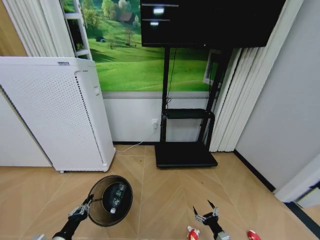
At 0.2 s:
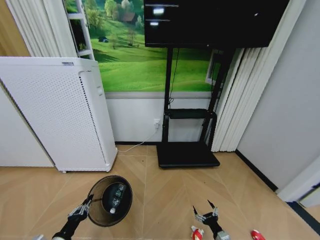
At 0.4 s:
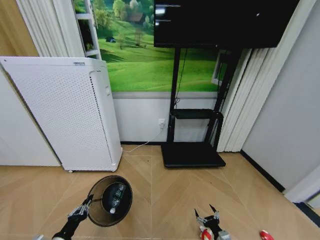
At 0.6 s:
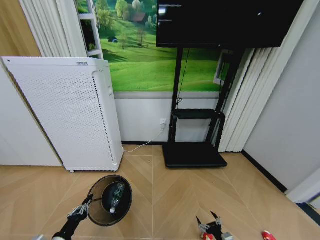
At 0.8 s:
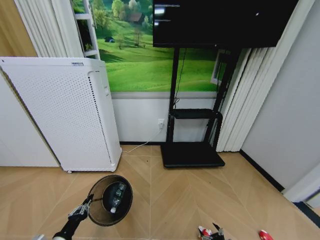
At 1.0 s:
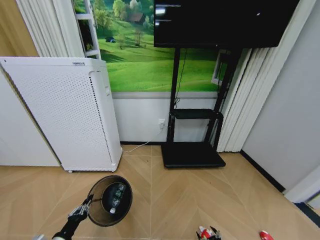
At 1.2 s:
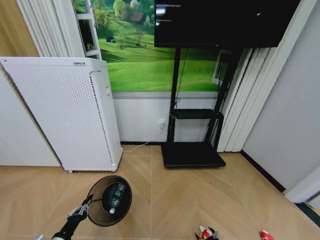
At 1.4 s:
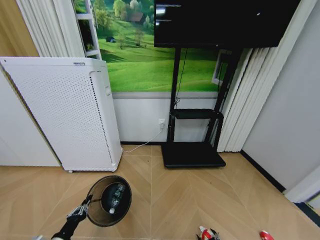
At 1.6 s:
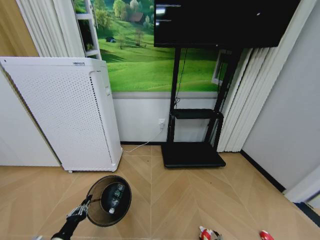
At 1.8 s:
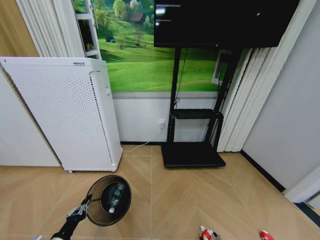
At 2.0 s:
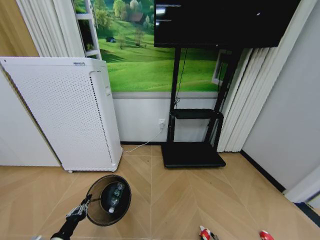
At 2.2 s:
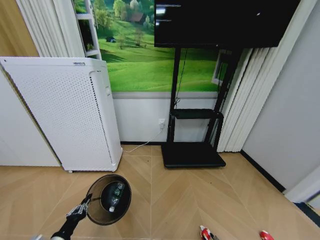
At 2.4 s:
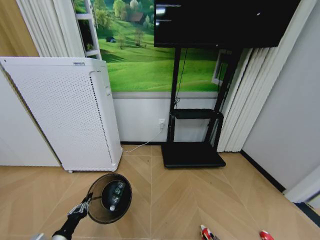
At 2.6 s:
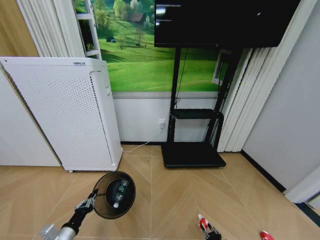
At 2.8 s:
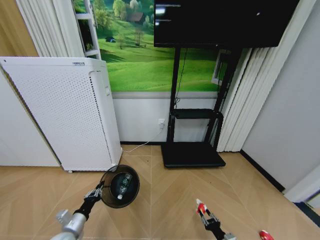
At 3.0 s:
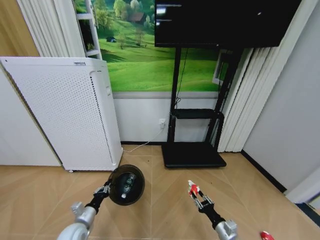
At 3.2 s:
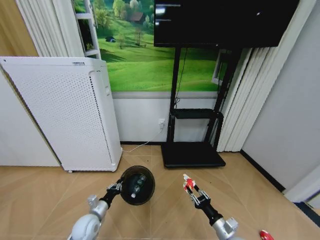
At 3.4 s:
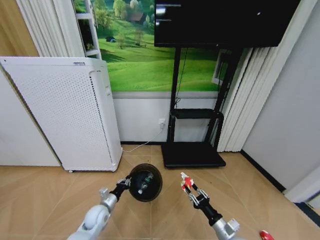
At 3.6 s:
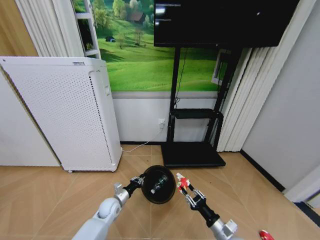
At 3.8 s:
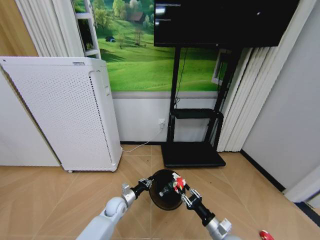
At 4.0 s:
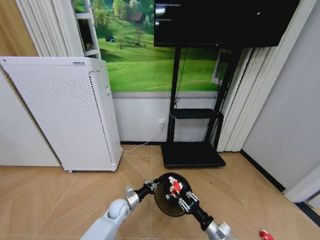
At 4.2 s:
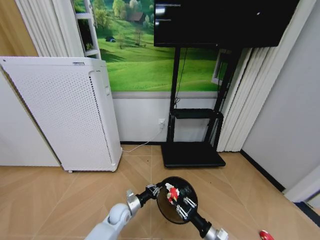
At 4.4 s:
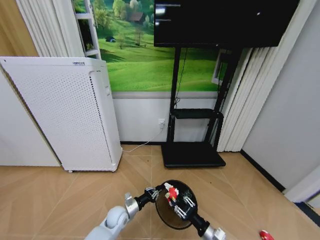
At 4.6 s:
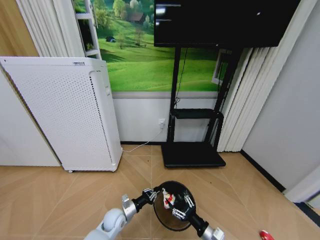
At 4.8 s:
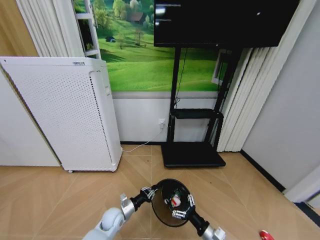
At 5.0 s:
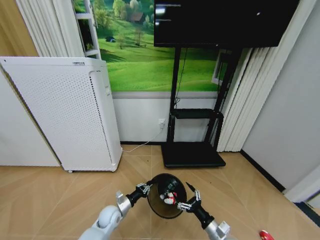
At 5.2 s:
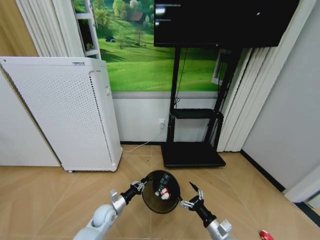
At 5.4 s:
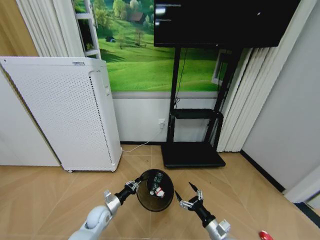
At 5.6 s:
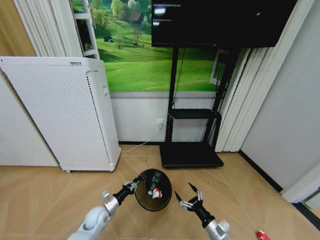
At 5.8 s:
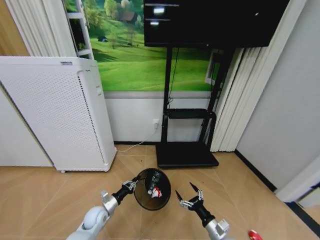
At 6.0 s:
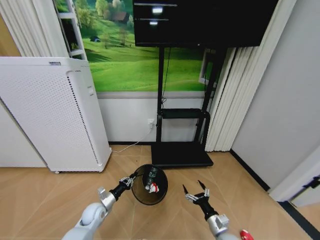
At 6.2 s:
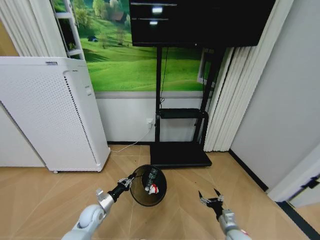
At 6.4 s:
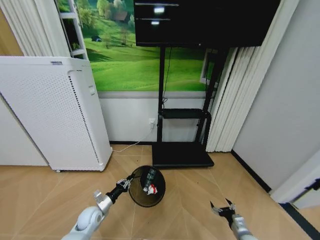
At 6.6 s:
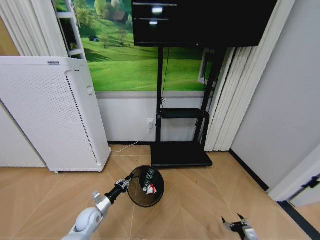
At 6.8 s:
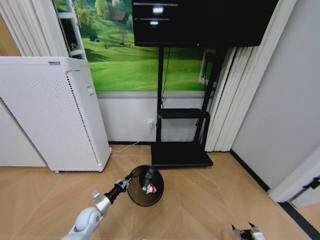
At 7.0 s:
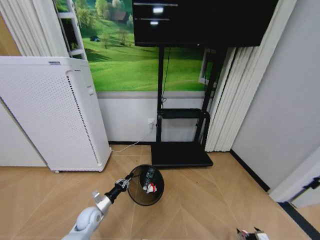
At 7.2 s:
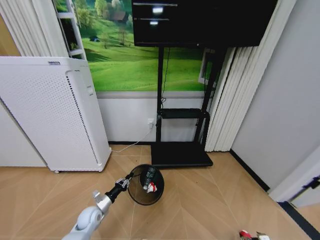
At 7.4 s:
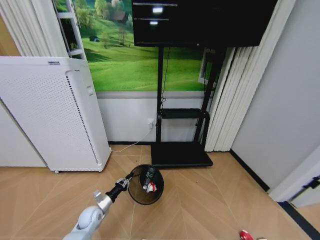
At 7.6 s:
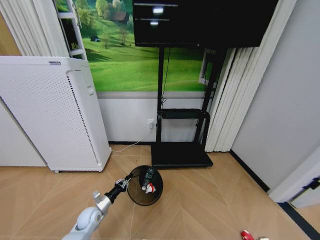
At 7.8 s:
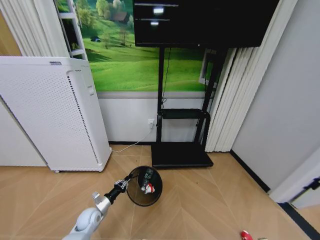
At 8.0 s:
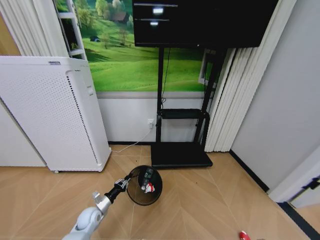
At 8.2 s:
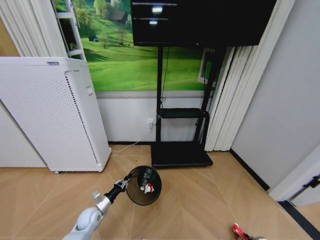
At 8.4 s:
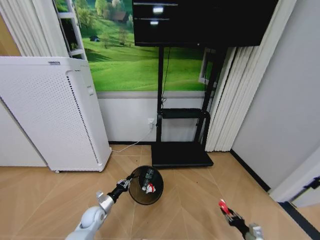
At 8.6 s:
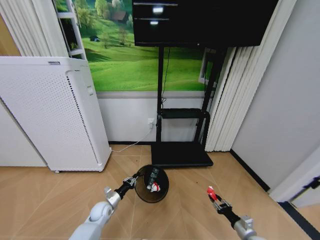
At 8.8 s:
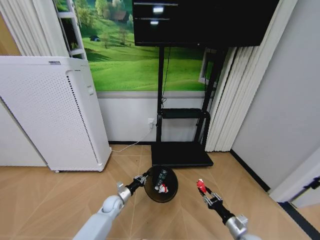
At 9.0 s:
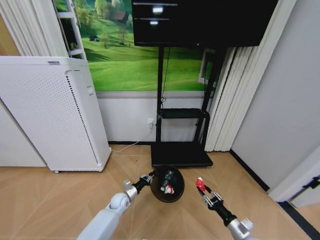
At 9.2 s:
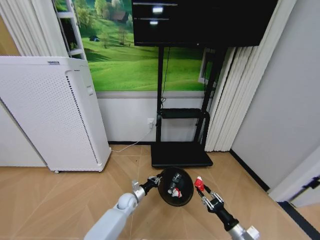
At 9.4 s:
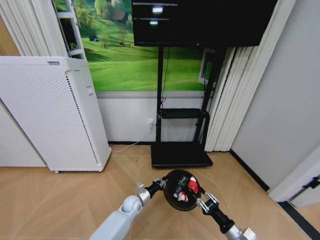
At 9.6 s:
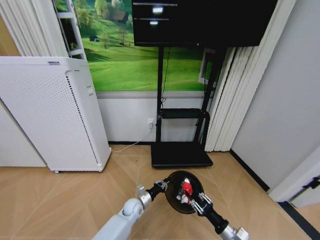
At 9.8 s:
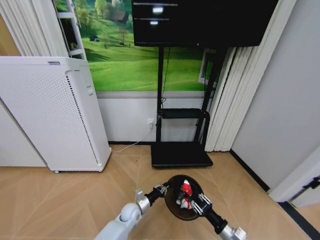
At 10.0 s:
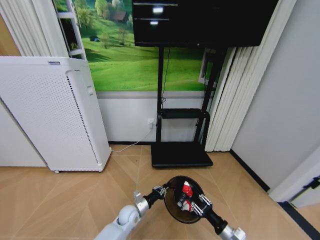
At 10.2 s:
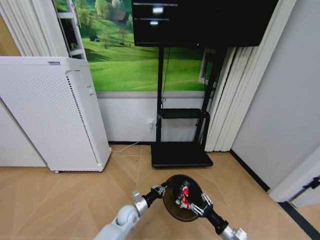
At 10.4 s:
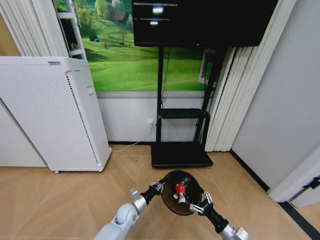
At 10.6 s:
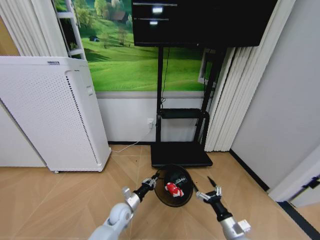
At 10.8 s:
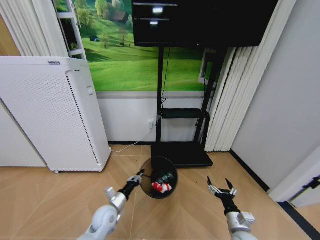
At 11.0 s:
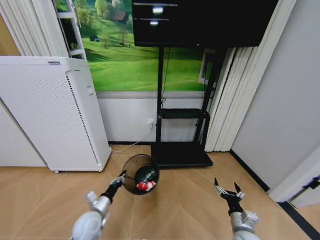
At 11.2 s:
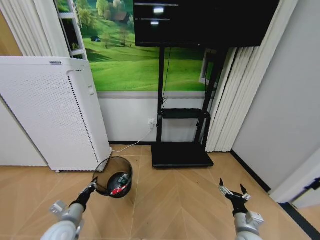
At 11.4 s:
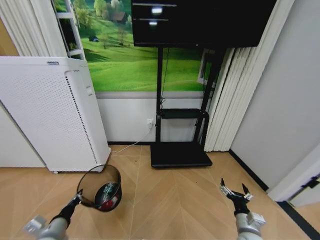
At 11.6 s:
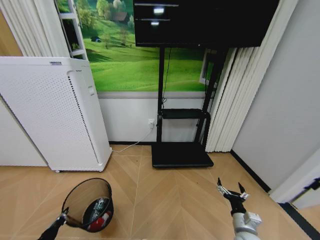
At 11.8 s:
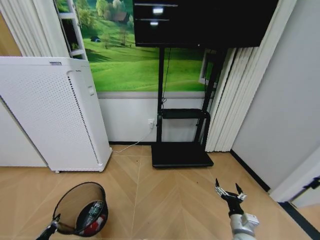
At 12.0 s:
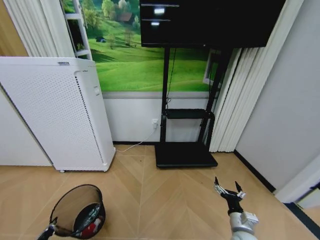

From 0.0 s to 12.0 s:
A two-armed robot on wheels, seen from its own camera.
Task of the whole recording: Pick up the trash bin and place the garbage on the floor into it.
From 0.0 s to 1.6 s: The right gripper is displaced downward by roughly 10 cm.
From 1.6 s to 3.0 s: The right gripper is displaced upward by roughly 15 cm, and closes. Meanwhile the left gripper is displaced forward by approximately 10 cm.
From 3.0 s to 4.4 s: The right gripper goes some 5 cm to the left; the left gripper travels to the right, forward and downward by about 20 cm.
From 4.4 s to 6.0 s: The right gripper opens; the left gripper goes approximately 10 cm to the left.
From 6.0 s to 7.6 s: The right gripper moves to the right and downward, roughly 30 cm.
From 7.6 s to 9.0 s: The left gripper goes some 10 cm to the right and forward; the right gripper shifts approximately 20 cm to the left and upward, and closes its fingers.
From 9.0 s to 10.4 s: The left gripper heads to the right and backward, covering roughly 10 cm; the right gripper goes about 5 cm to the left, and opens its fingers.
From 10.4 s to 12.0 s: The left gripper moves to the left, backward and upward, approximately 40 cm.

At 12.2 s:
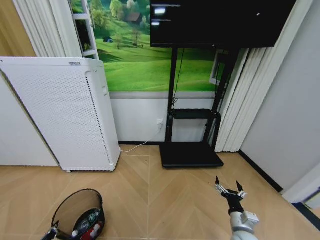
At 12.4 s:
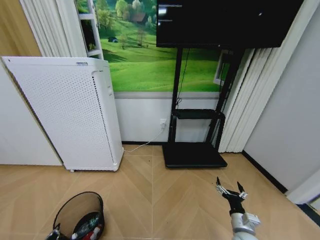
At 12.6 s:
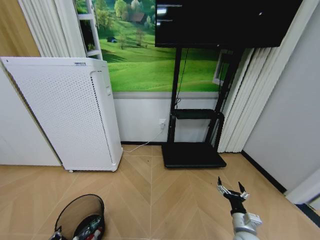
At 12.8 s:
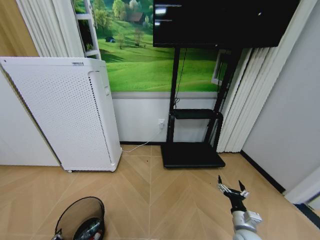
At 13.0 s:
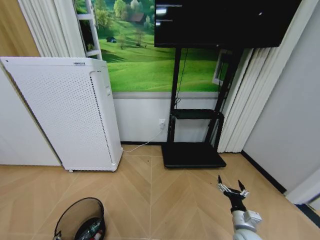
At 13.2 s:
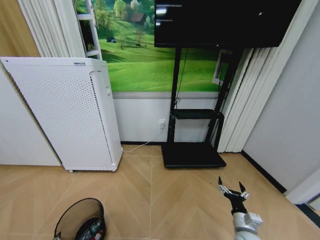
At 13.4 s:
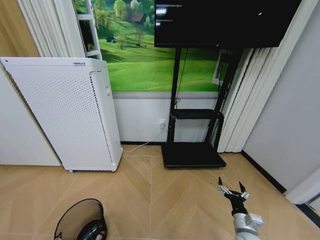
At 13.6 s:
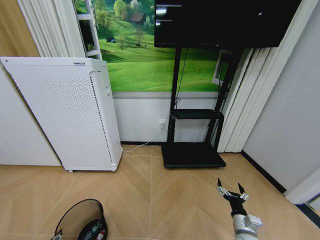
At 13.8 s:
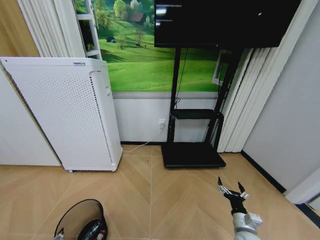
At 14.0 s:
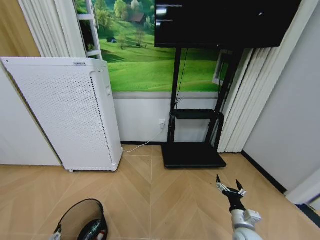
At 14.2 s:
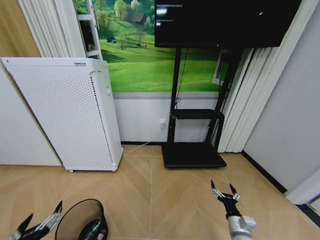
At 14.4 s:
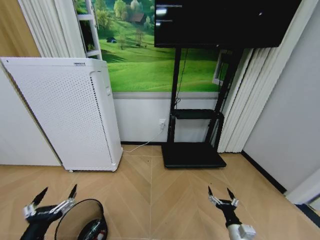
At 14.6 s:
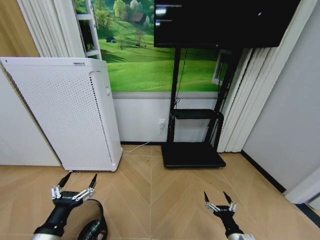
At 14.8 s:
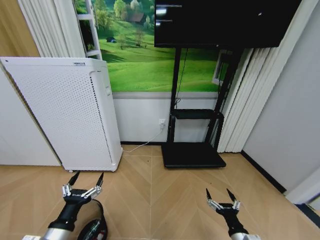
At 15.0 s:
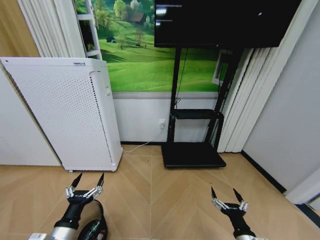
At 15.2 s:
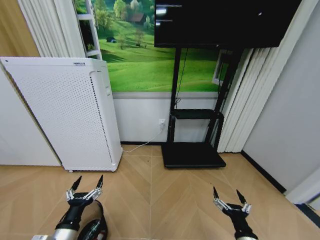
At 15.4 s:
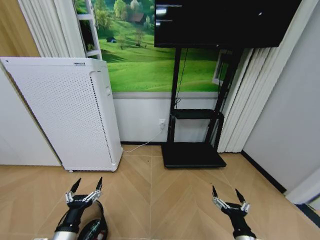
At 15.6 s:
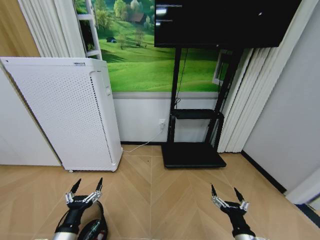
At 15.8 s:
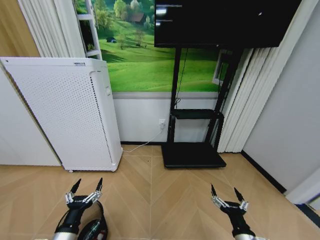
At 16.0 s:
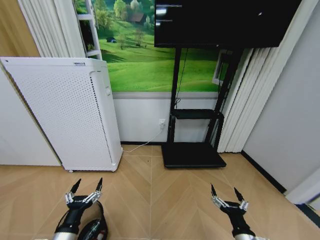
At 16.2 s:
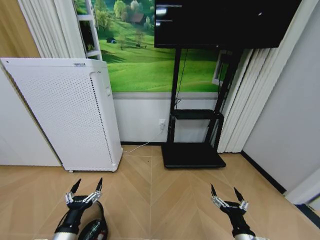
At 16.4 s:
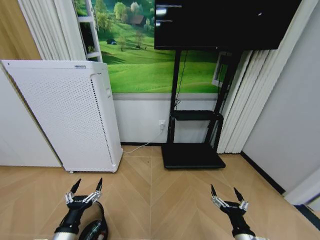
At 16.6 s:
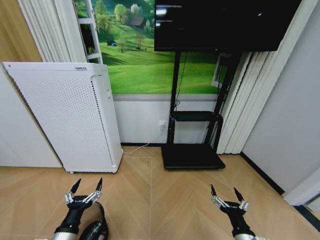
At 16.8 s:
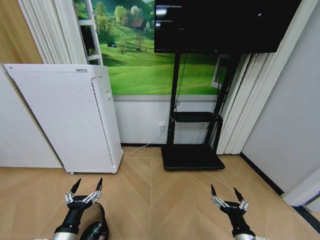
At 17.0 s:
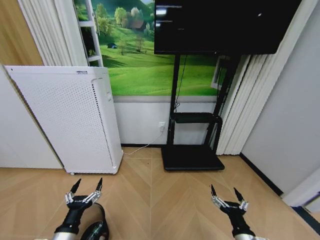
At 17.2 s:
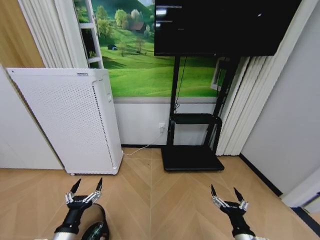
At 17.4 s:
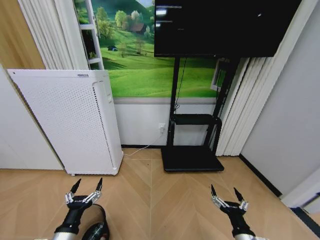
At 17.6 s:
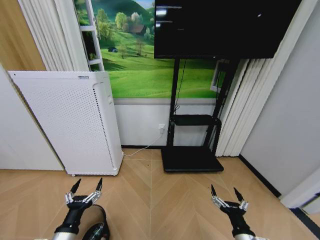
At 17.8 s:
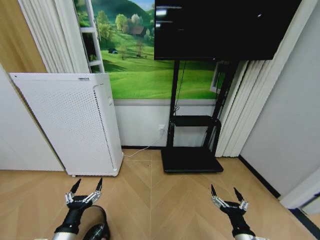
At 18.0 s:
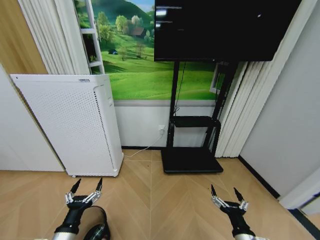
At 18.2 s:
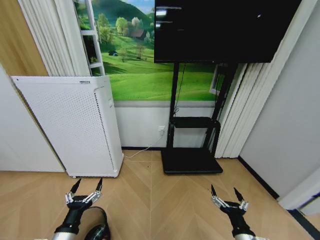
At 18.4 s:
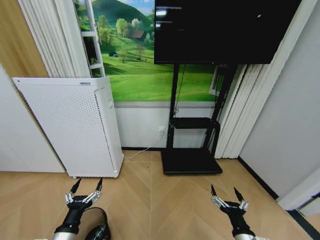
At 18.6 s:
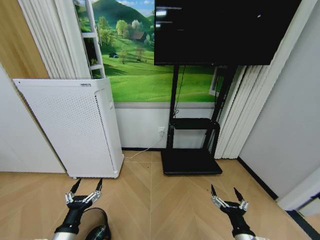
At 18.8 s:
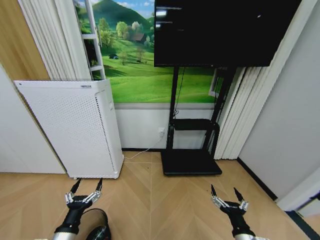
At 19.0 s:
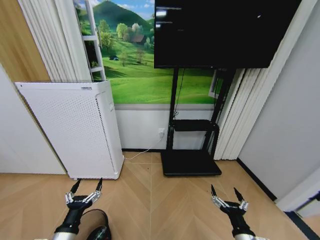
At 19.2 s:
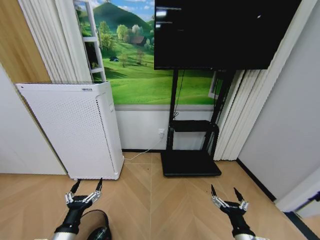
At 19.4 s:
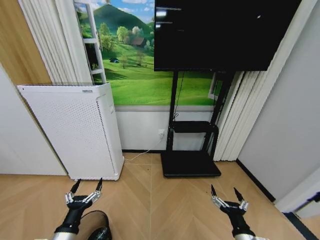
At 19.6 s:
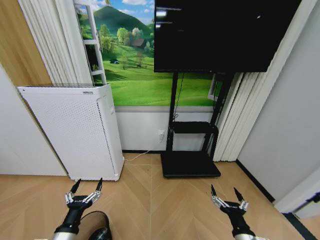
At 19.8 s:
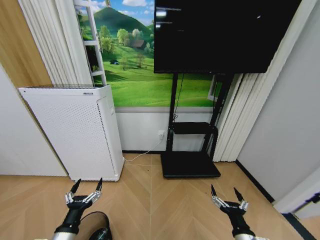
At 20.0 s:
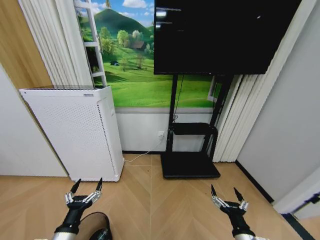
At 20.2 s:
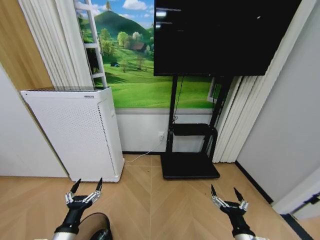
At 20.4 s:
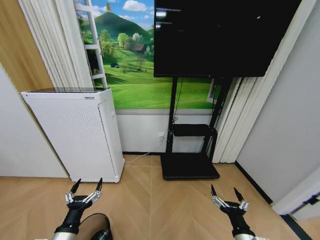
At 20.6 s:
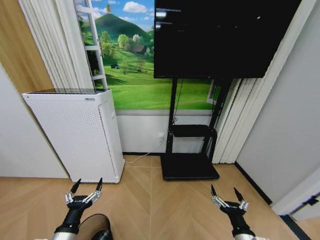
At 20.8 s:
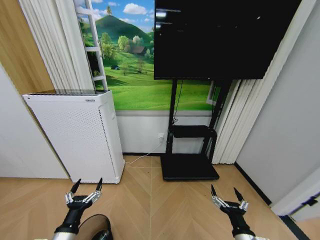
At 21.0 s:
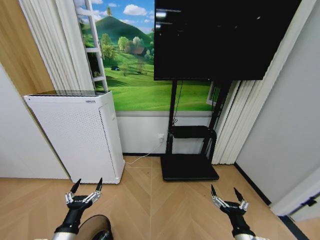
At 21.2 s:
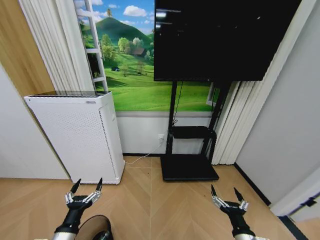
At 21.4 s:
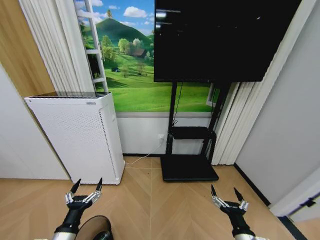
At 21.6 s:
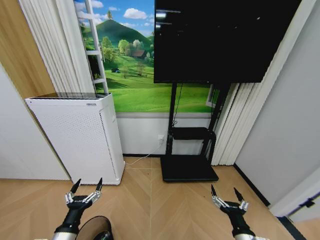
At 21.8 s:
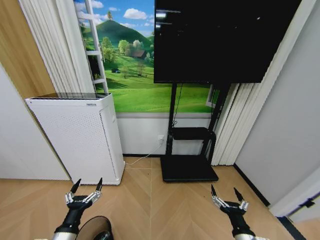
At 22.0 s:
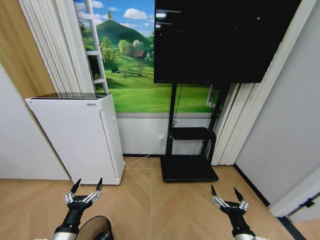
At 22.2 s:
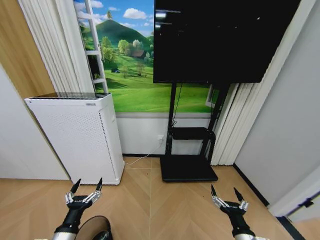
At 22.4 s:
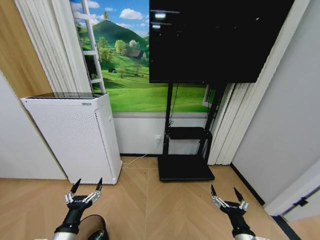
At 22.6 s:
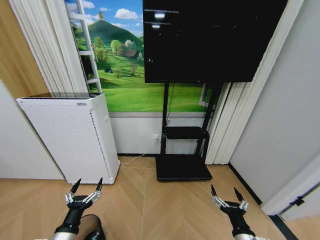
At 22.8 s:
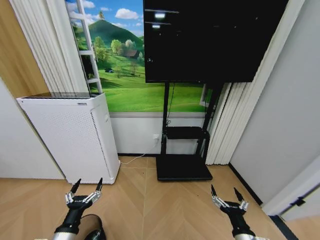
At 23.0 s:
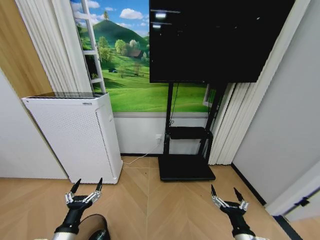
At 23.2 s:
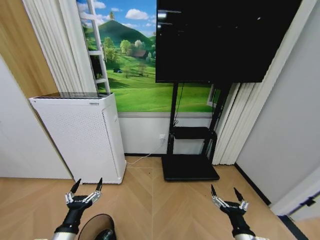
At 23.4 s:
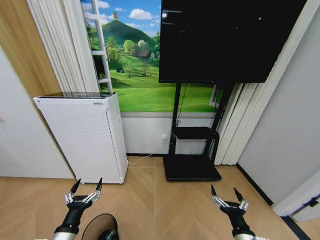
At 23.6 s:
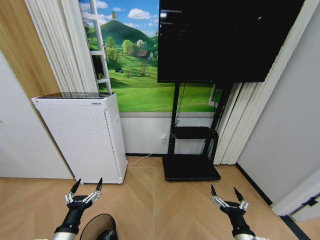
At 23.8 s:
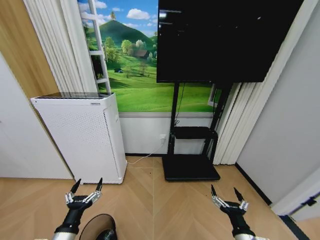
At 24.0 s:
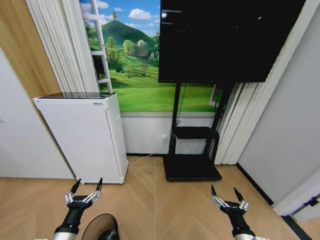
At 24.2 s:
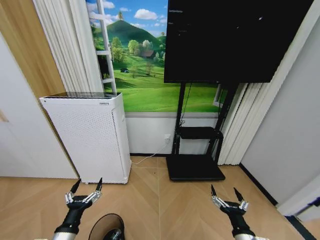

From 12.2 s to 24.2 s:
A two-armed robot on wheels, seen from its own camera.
Task of the whole recording: Pick up the trash bin and place the garbage on the floor into it.
From 12.2 s to 13.8 s: The left gripper opens.
From 13.8 s to 15.2 s: The left gripper moves upward, to the right and forward, some 15 cm, and opens, while the right gripper is displaced backward, upward and to the left by about 10 cm.
From 15.2 s to 16.6 s: The grippers stay close to where they were, moving slightly.
From 16.6 s to 21.2 s: The two grippers keep their place.
